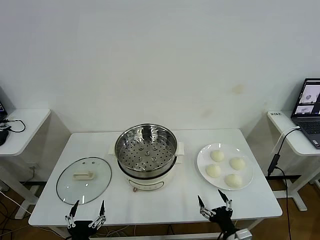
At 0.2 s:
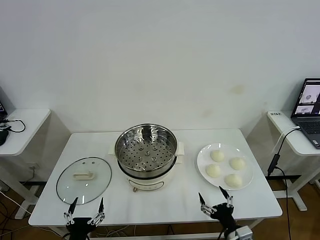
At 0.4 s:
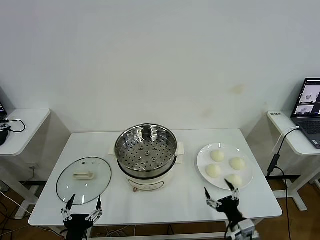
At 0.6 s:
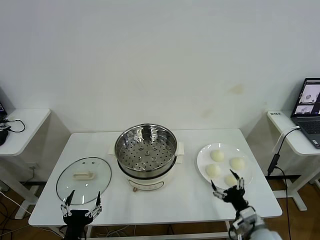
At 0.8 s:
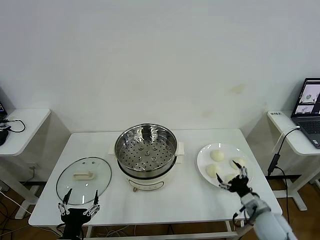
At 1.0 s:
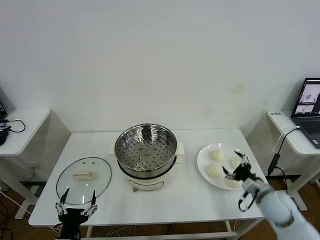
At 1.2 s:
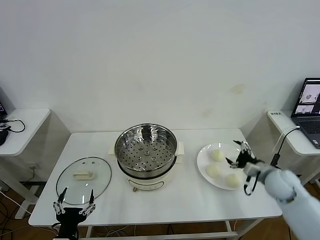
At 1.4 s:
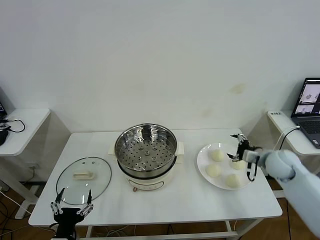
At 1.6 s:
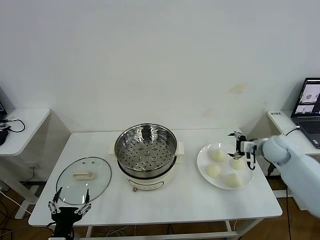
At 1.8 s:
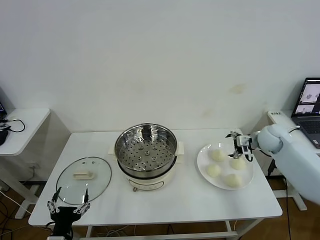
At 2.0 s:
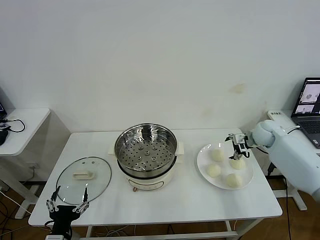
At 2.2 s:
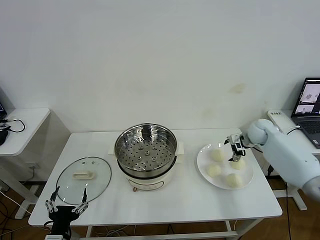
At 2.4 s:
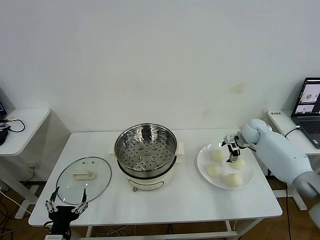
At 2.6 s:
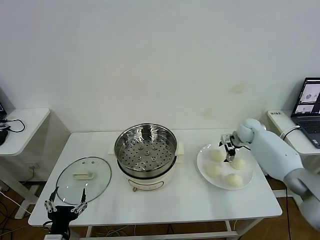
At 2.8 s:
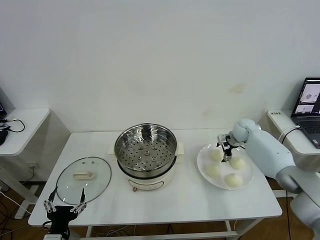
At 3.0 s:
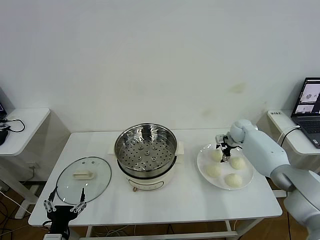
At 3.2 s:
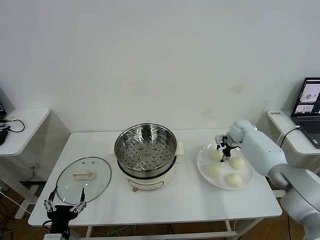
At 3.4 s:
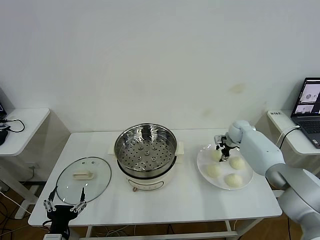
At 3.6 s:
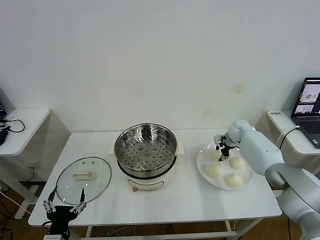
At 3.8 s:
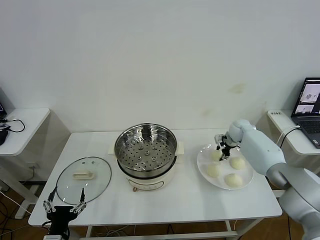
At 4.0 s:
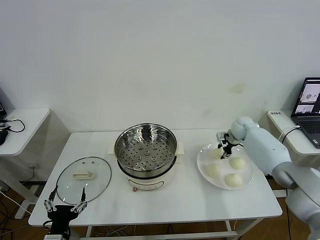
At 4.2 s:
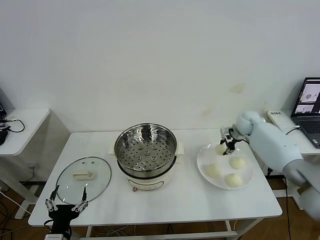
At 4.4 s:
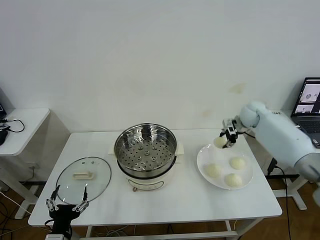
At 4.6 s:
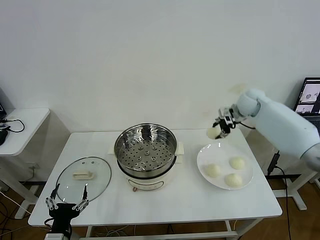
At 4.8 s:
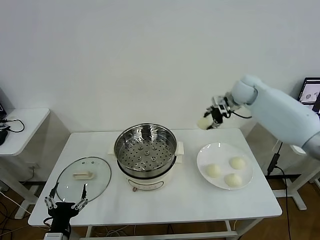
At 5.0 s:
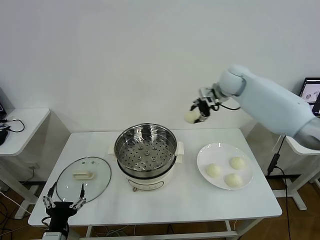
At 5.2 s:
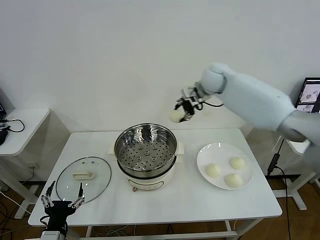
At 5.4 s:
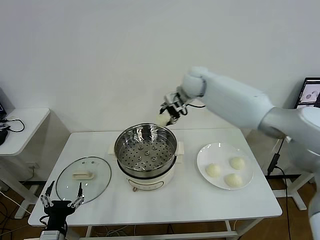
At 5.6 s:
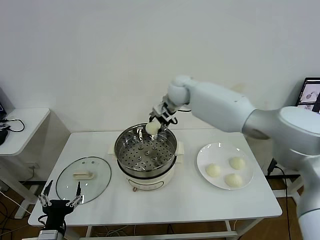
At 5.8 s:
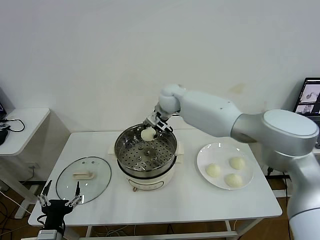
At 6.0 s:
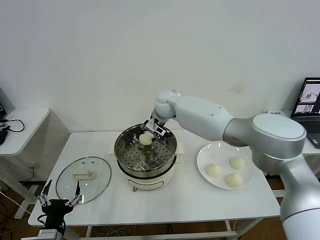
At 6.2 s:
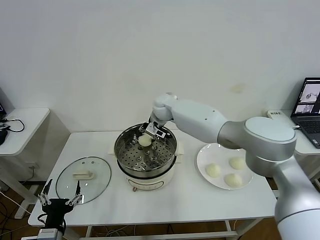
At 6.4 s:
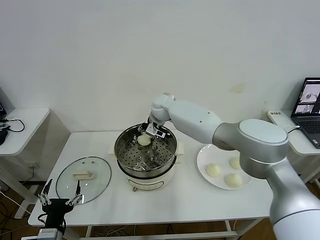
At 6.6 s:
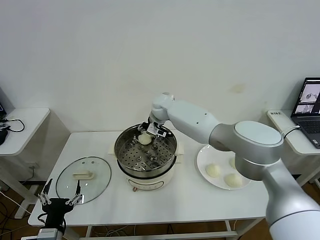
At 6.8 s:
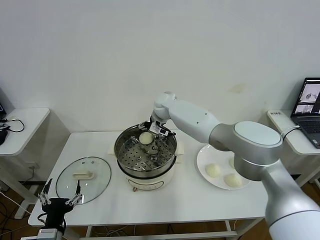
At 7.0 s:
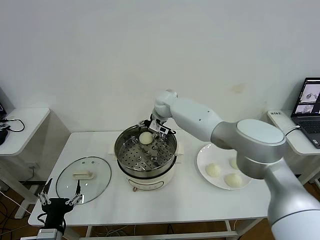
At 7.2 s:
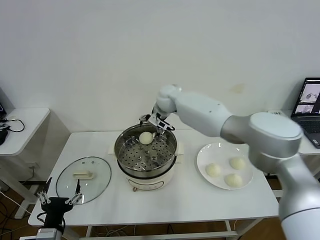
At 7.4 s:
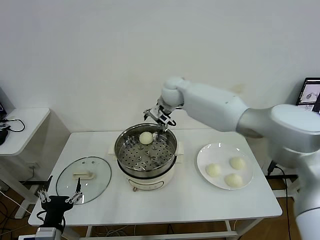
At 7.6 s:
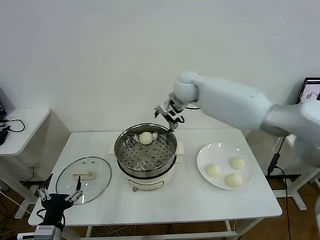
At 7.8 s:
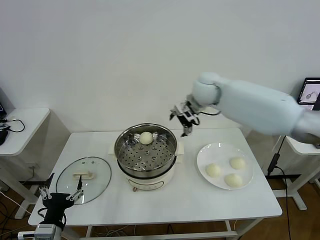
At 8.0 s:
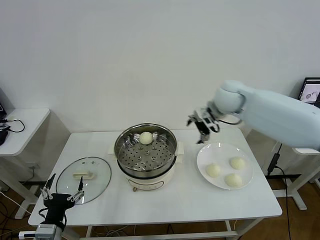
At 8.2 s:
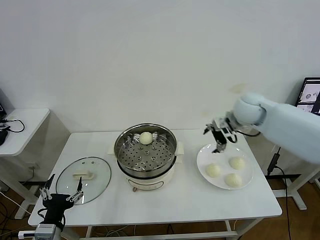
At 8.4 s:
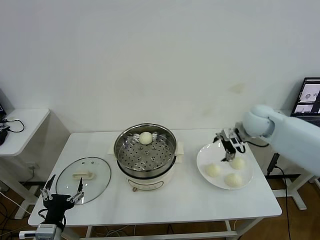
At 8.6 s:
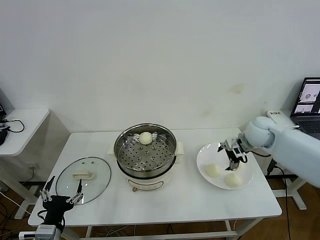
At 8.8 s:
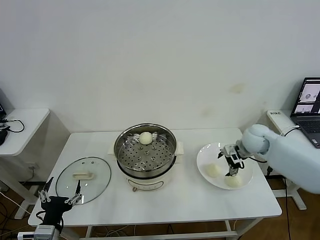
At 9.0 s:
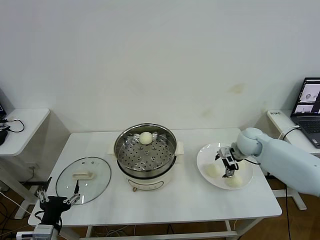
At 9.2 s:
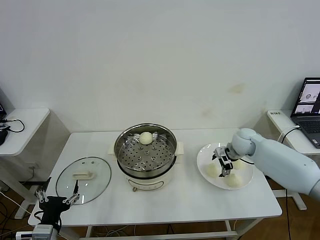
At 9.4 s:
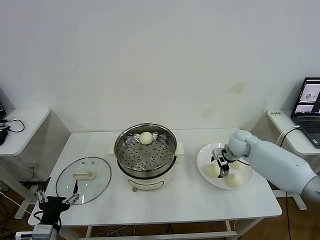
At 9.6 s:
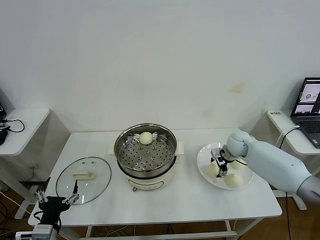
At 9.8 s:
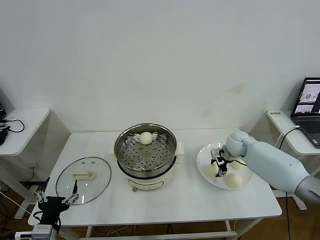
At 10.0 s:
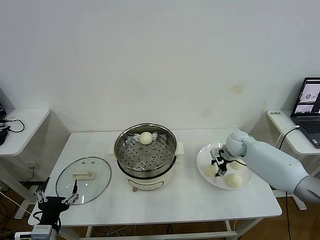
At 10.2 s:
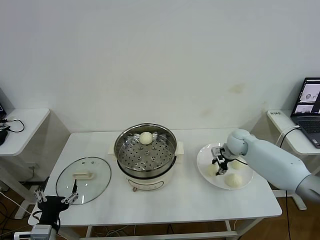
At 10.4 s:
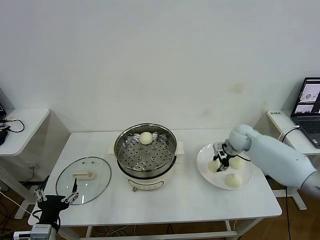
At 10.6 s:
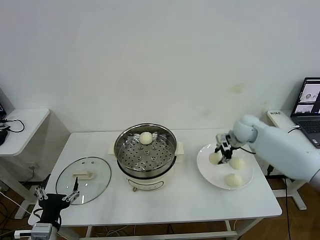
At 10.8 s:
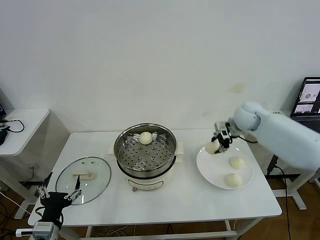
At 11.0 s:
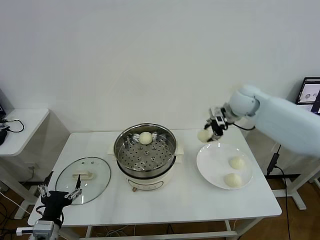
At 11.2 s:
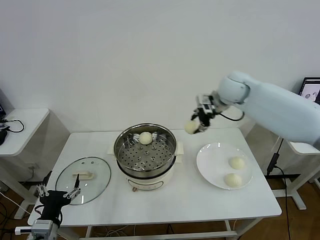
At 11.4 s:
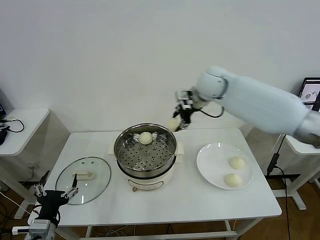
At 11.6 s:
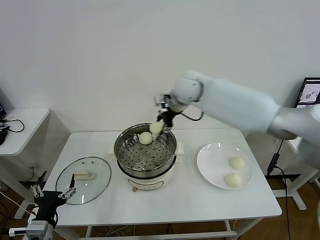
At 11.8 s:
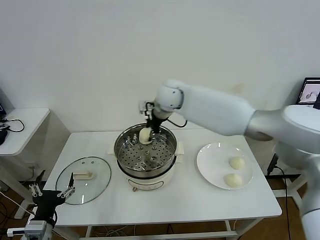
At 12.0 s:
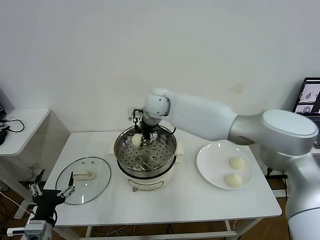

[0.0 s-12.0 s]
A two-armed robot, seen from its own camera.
Task of the whole recording: take steamed baozi put them in steamer then cover it.
Step, 0.0 to 3.8 s: Grasp the baozi in the plate with right gripper.
Step, 4.0 to 6.8 s: Place the baozi on the steamer with right gripper.
Step, 7.0 to 10.0 s: Grasp the baozi in the plate with right gripper.
1.6 to 3.0 s: The right gripper is displaced forward, downward and to the left by approximately 15 cm.
3.0 to 4.4 s: The right gripper heads upward, covering approximately 10 cm, and closes its fingers.
4.4 to 6.0 s: The right gripper is displaced to the left by approximately 35 cm.
6.0 to 7.6 s: The right gripper travels upward and to the right by roughly 10 cm, and opens.
7.6 to 9.0 s: The right gripper travels to the right and downward by some 30 cm.
9.0 to 10.4 s: The right gripper closes.
10.4 to 12.0 s: The right gripper shifts approximately 35 cm to the left and upward.

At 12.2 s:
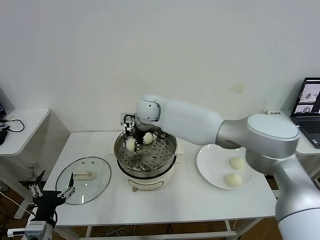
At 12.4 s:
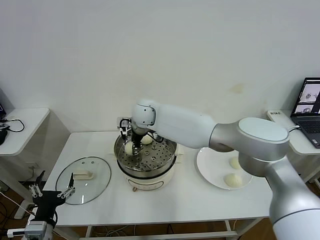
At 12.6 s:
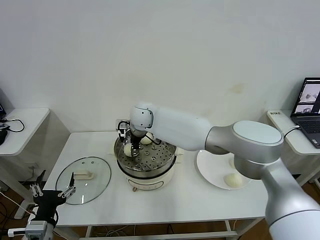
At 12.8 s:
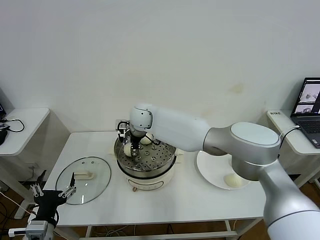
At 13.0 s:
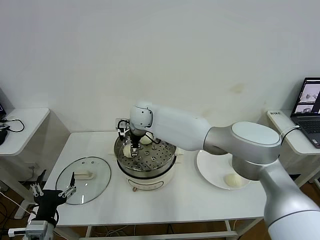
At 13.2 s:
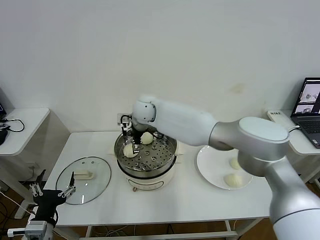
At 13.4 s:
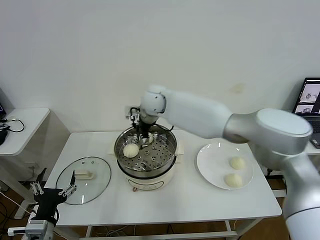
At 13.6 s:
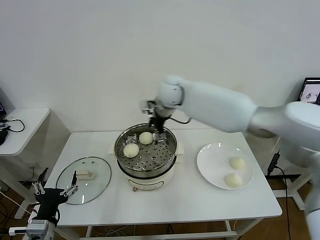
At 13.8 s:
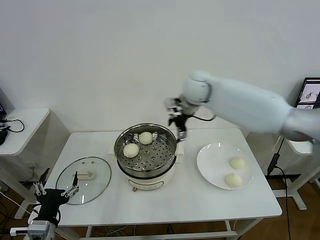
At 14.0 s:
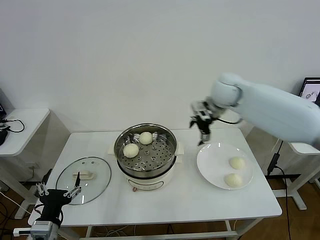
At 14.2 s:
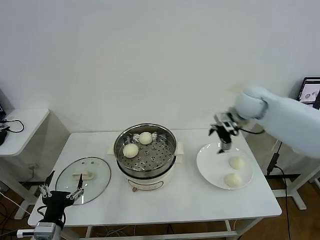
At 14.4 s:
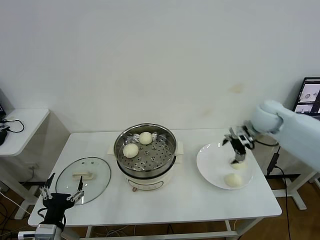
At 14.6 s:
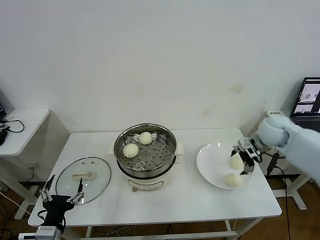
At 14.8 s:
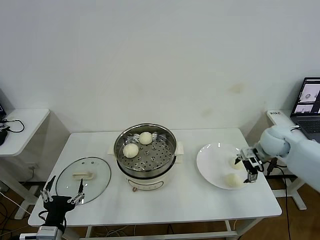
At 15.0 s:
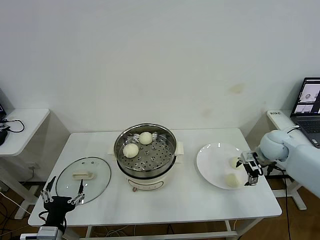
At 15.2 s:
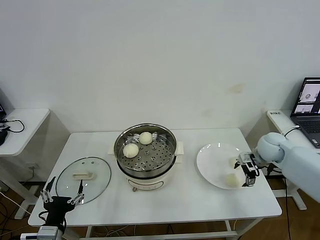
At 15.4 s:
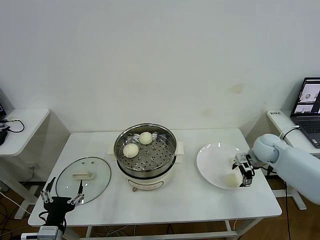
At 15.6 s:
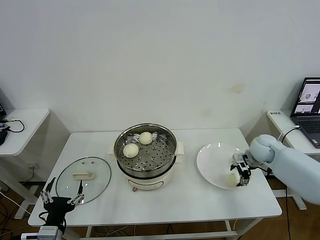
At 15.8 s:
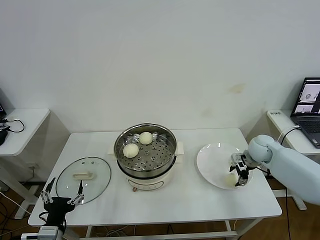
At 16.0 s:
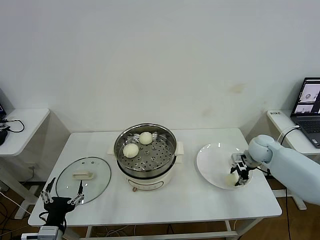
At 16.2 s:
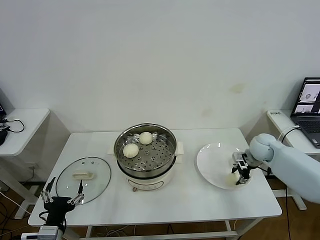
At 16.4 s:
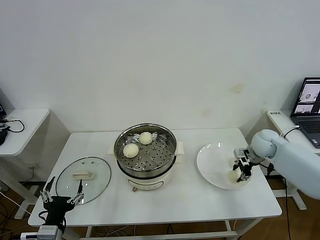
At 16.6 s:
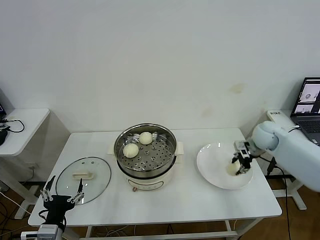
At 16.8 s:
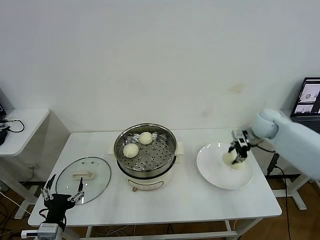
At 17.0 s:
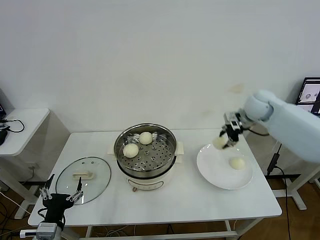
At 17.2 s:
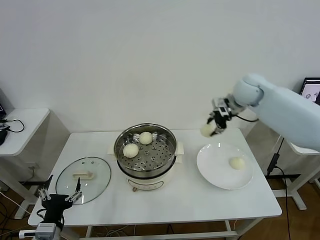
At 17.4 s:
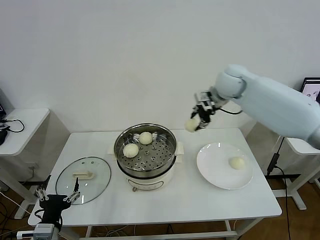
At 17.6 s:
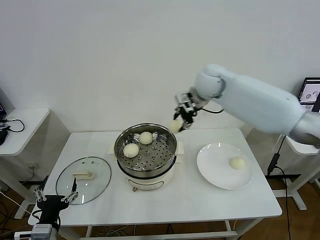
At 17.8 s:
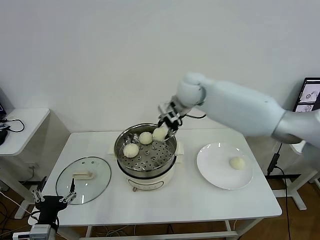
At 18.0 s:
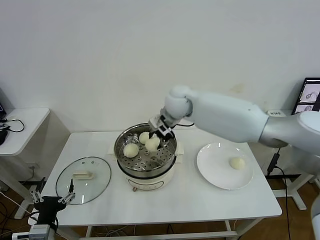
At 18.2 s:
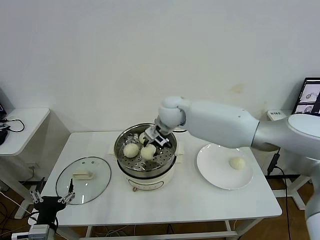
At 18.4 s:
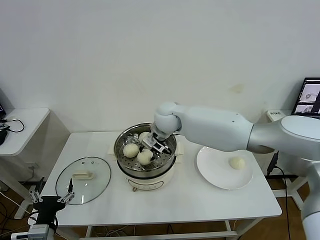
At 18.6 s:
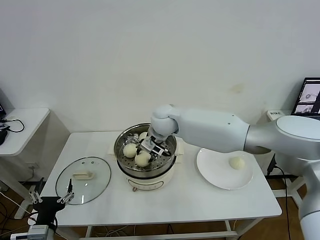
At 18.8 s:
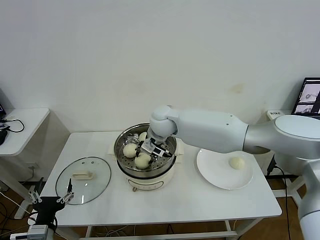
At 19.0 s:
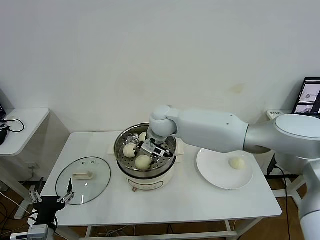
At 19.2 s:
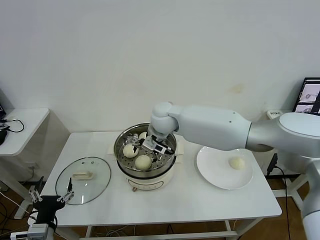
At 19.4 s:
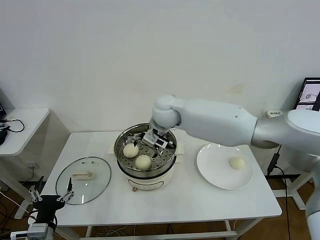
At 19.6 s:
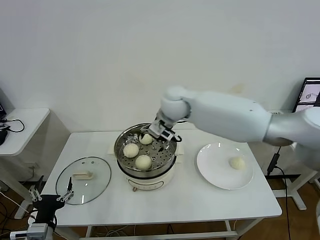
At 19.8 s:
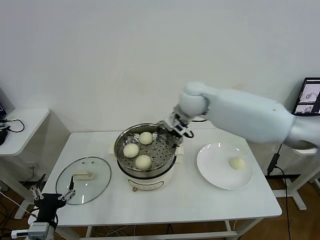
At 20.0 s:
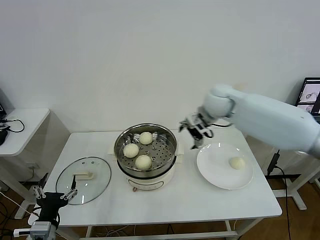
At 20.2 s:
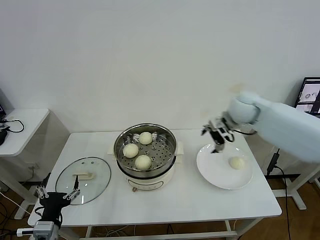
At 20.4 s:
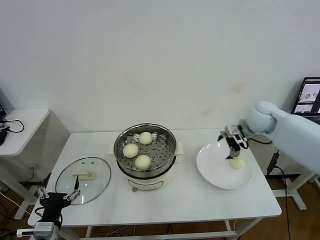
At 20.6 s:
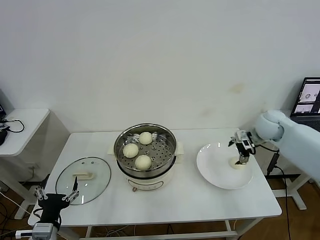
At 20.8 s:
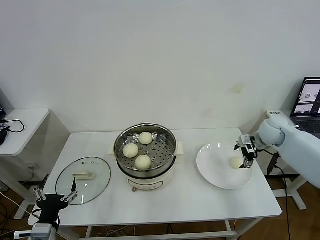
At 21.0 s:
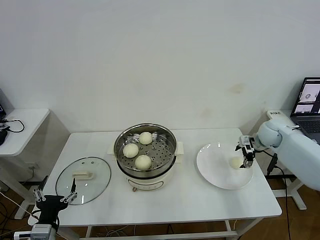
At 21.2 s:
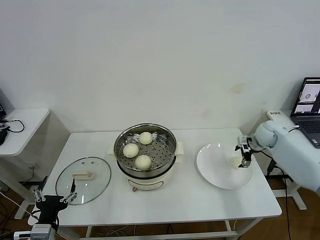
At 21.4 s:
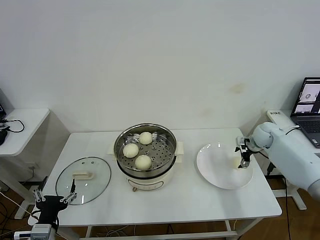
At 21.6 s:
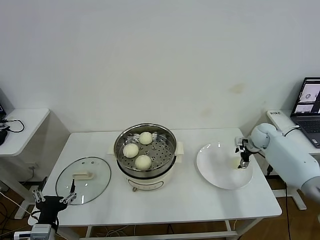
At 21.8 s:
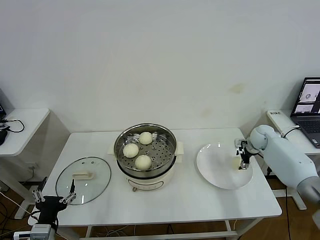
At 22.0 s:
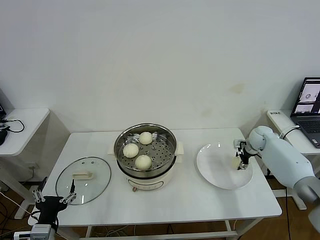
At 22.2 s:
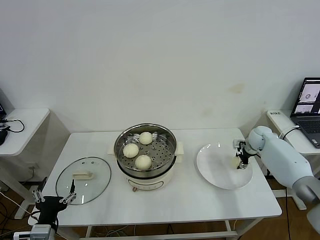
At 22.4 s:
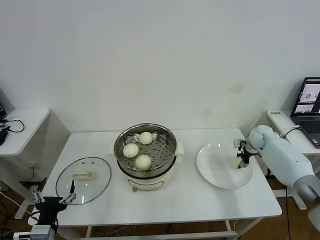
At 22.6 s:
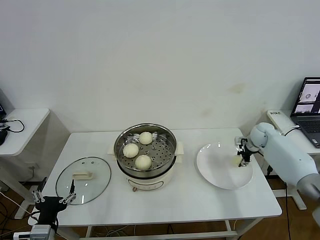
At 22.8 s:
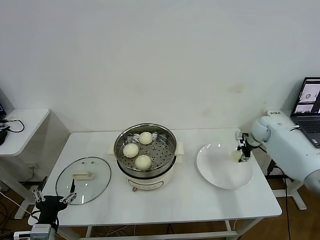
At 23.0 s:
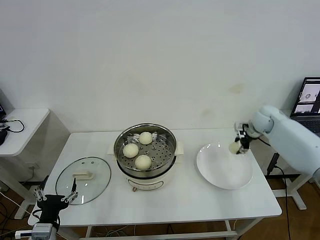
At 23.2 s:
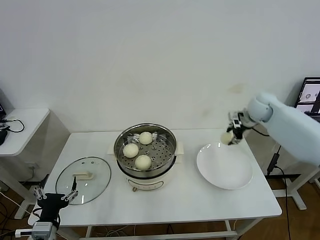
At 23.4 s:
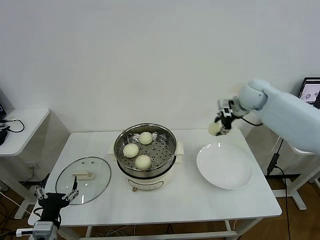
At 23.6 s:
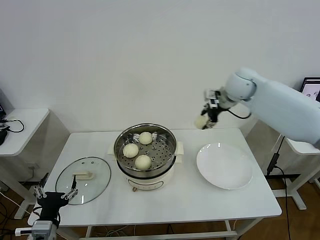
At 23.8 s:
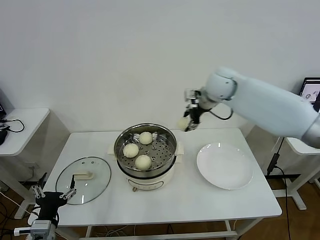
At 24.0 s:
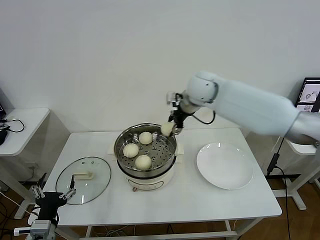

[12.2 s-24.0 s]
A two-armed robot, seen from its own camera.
Task of the whole recording: take steamed baozi put them in steamer then cover it.
Step, 13.2 to 16.0 s: Grasp the baozi in the plate with right gripper.
Step, 16.4 to 19.2 s: Place the baozi on the steamer with right gripper.
Step, 19.4 to 22.4 s: Grasp the baozi in the plate with right gripper.
12.2 to 13.6 s: The right gripper travels to the right and upward by approximately 10 cm, and opens its fingers.
13.6 to 15.2 s: The right gripper moves to the right and downward, some 40 cm.
15.2 to 16.6 s: The right gripper closes its fingers.
16.6 to 18.2 s: The right gripper moves to the left, about 35 cm.
18.2 to 19.6 s: The right gripper opens up.
19.6 to 21.0 s: The right gripper goes some 35 cm to the right.
21.0 to 22.6 s: The right gripper is displaced downward by about 5 cm, and closes its fingers.
22.6 to 24.0 s: The right gripper heads to the left and upward, covering about 35 cm.
